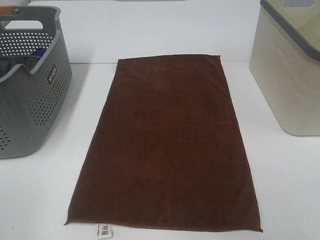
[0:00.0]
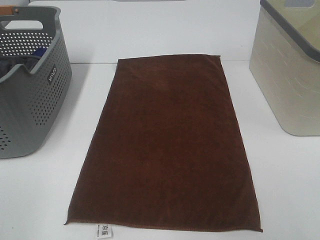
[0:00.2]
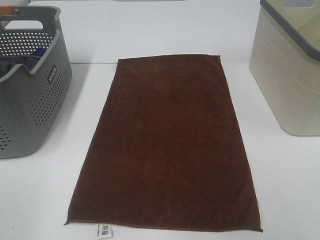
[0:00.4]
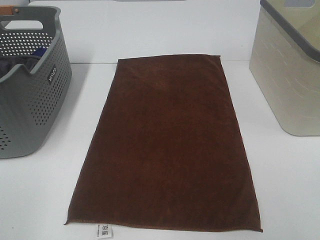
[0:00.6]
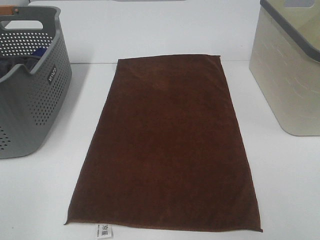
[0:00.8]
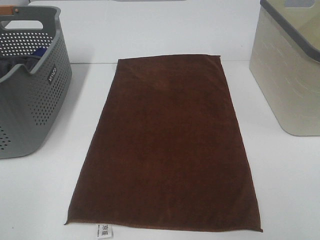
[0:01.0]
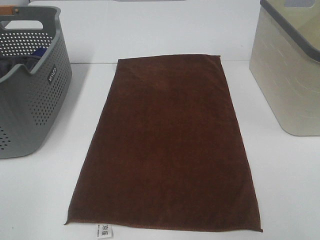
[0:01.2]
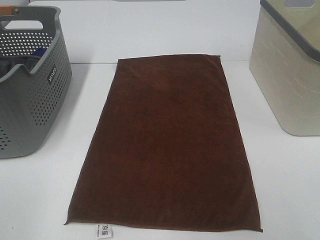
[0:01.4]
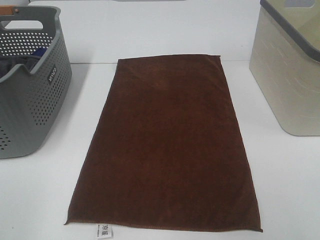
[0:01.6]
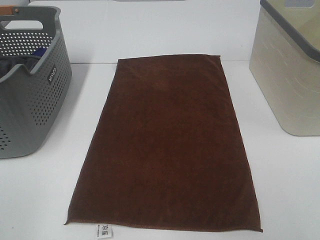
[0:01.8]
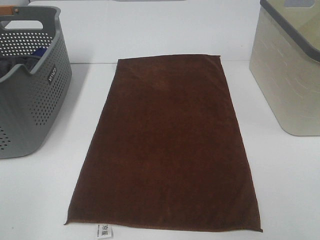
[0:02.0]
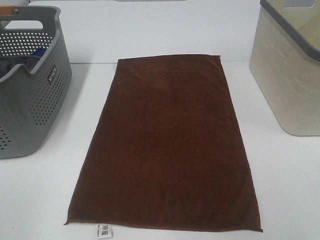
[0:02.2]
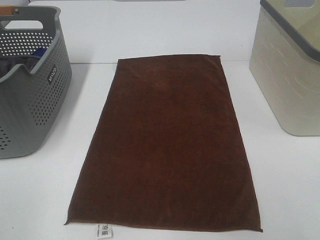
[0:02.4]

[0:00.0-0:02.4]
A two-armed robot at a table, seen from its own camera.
Task of the whole recording: Remove the towel and place it.
0:00.0 to 0:02.4: Neither gripper changes place.

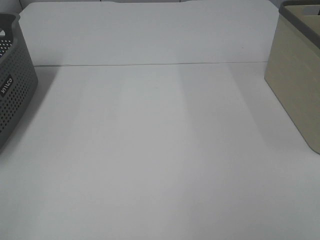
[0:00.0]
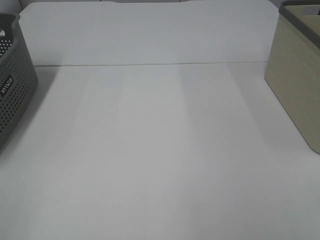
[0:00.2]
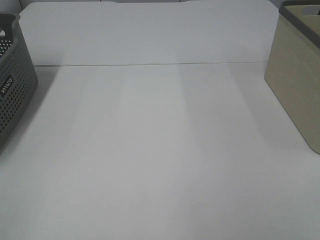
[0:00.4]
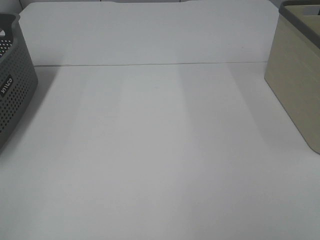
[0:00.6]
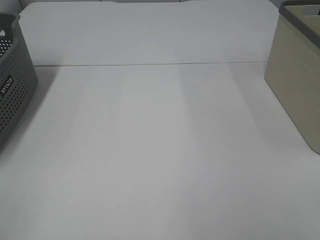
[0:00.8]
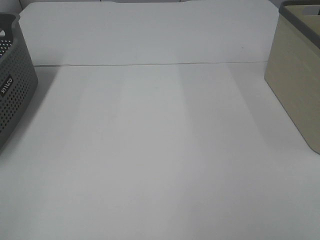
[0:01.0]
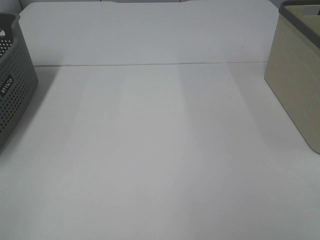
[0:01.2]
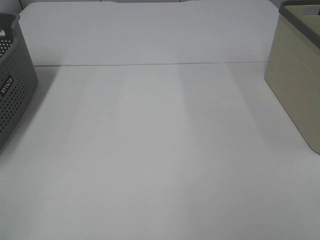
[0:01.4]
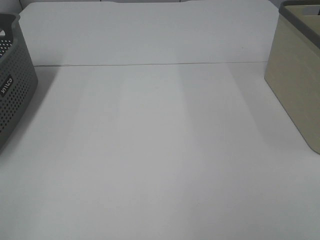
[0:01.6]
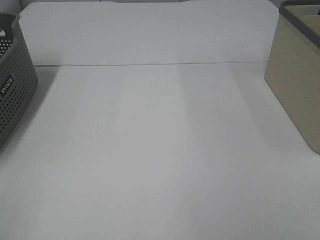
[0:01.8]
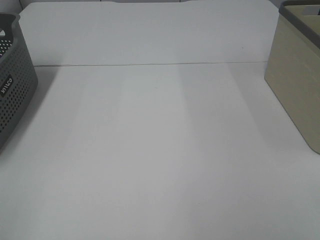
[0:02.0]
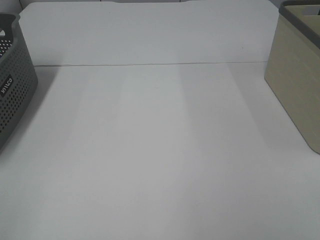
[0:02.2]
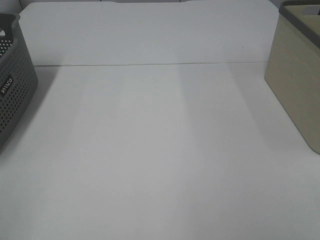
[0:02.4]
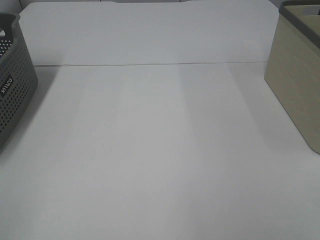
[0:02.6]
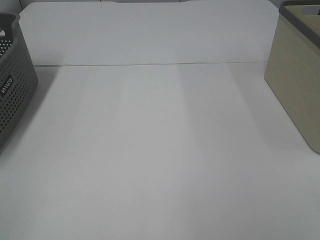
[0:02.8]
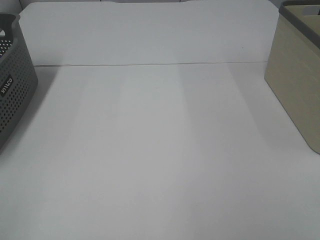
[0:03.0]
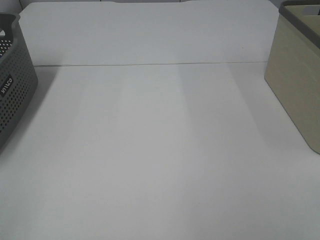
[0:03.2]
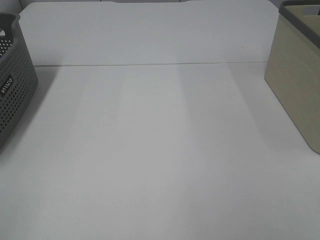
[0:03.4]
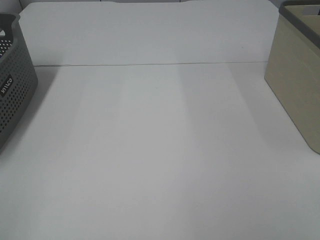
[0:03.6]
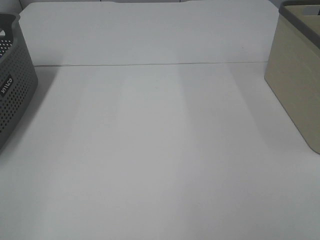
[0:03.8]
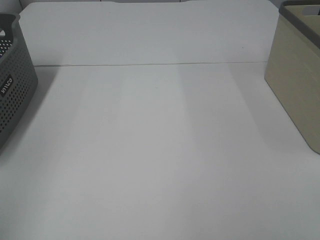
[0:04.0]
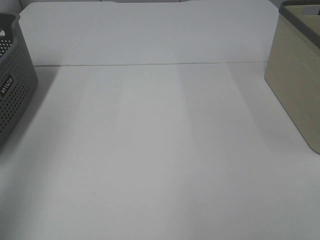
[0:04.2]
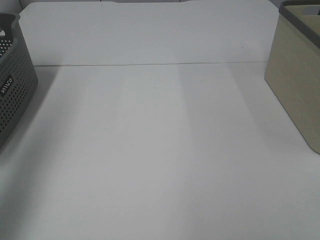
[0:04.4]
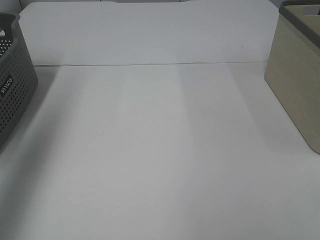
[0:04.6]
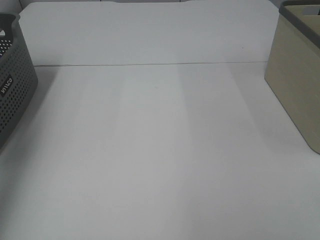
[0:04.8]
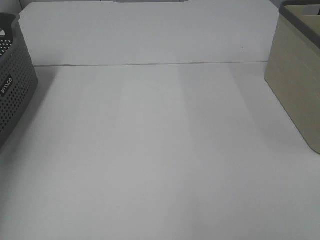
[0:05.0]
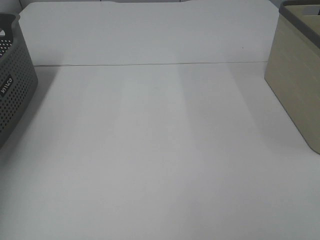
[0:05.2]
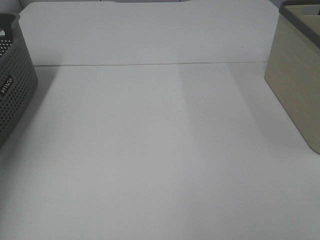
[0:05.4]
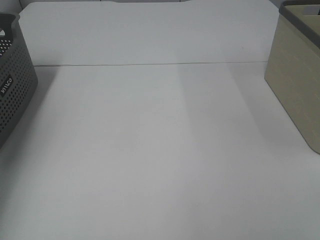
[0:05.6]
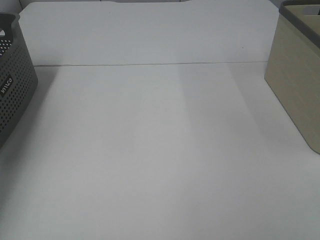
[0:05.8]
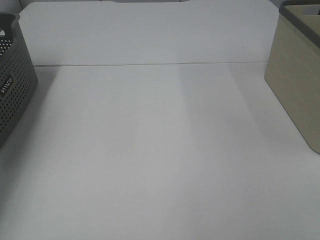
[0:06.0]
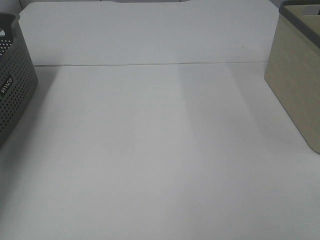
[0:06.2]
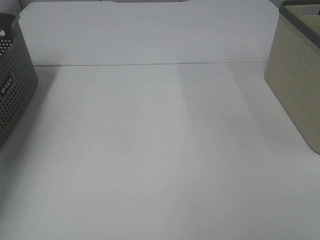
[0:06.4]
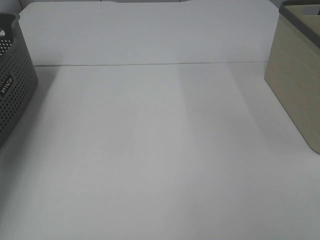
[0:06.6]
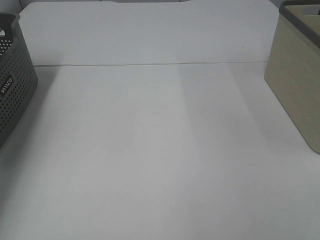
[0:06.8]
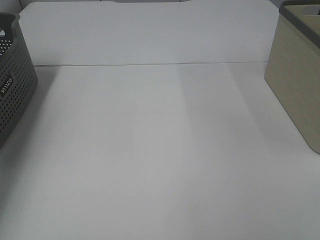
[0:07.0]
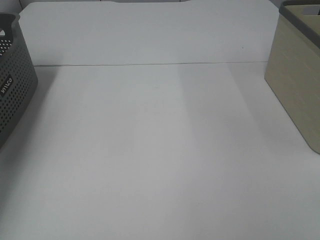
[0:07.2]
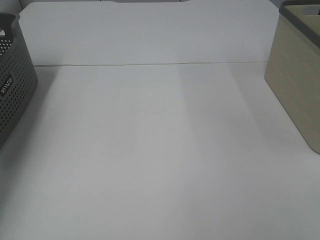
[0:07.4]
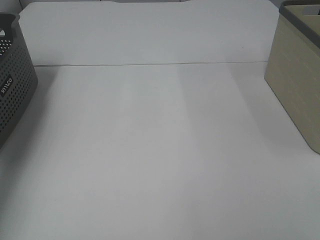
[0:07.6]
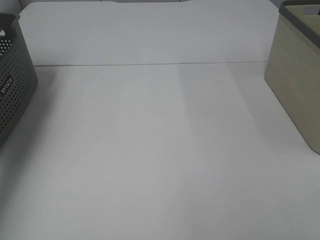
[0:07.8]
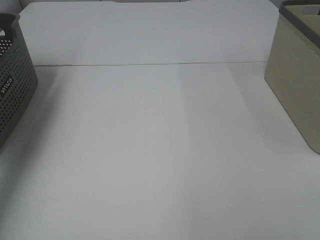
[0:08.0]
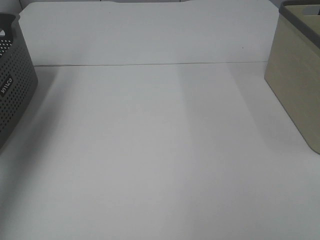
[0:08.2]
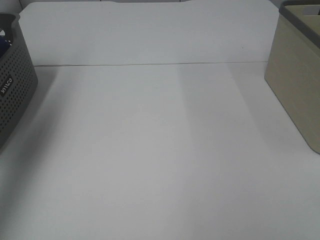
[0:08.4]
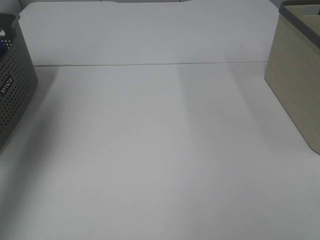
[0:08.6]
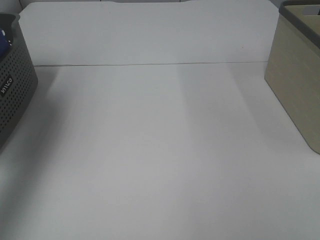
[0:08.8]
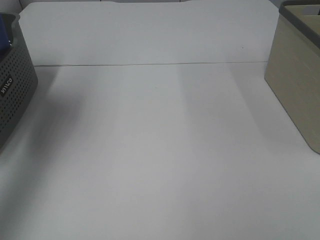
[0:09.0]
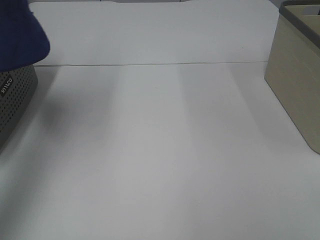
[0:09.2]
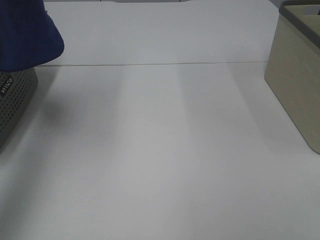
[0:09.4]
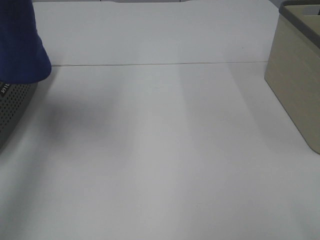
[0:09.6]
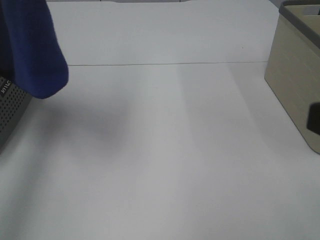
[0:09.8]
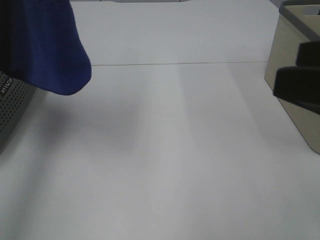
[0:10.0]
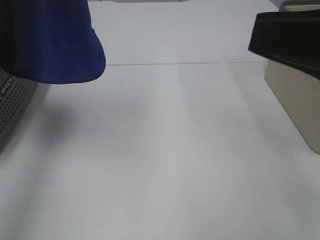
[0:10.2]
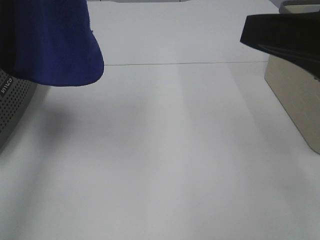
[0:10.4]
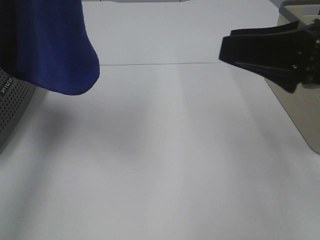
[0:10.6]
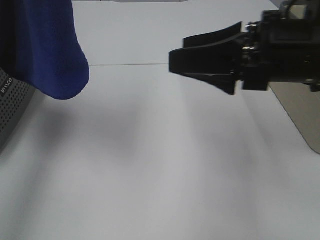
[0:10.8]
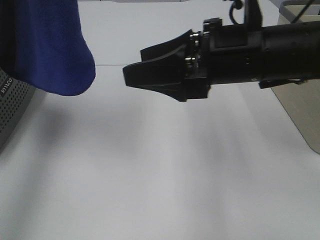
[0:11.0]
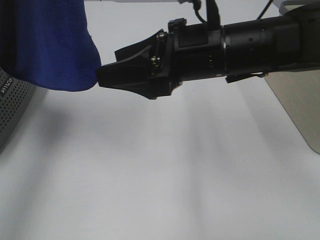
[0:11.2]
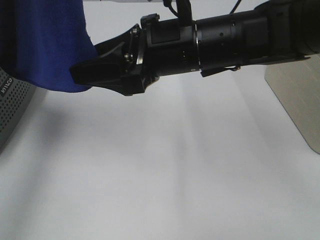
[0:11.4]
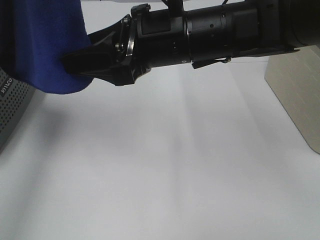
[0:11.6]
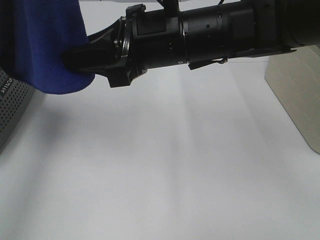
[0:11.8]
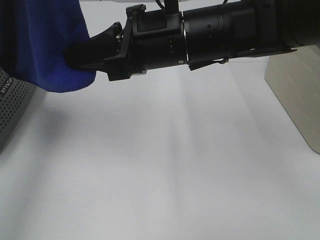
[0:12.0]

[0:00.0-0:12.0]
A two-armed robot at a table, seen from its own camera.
Task of the whole recording: Remove the towel and place it.
Step, 0:08.6 to 0:11.8: Right hand: grab a corner of the blue towel and straighten it.
0:00.0 to 0:03.0: Both grippers stay put.
0:03.0 to 0:04.4: The left gripper travels forward and upward by roughly 25 cm.
0:04.4 to 0:06.0: The left gripper goes about 35 cm forward and downward.
0:07.6 to 0:09.0: The left gripper heads upward and backward, covering roughly 30 cm.
0:09.0 to 0:10.4: The left gripper heads to the right, covering roughly 10 cm; the right gripper shifts roughly 20 cm forward.
0:10.4 to 0:12.0: The right gripper is displaced to the left and forward by approximately 20 cm, and closes.

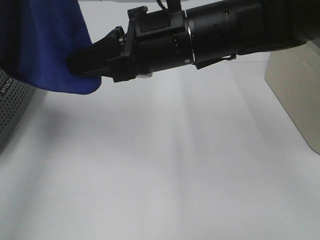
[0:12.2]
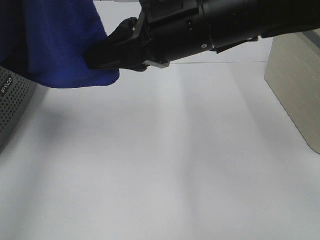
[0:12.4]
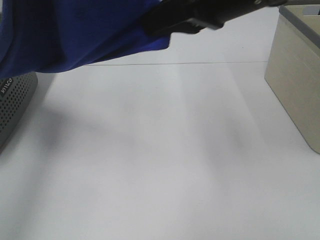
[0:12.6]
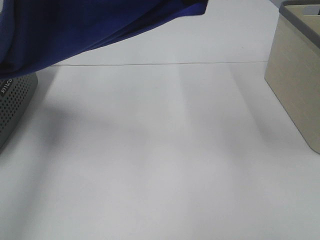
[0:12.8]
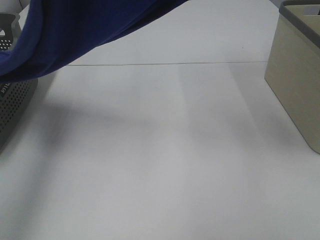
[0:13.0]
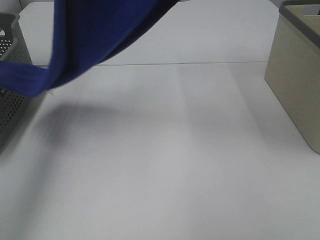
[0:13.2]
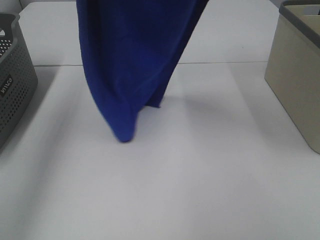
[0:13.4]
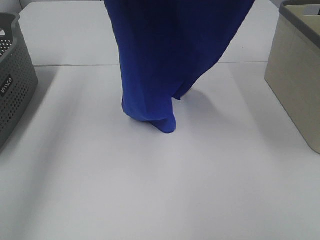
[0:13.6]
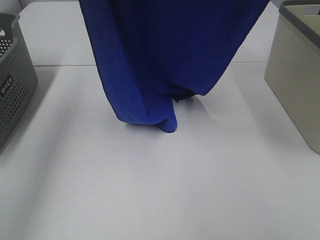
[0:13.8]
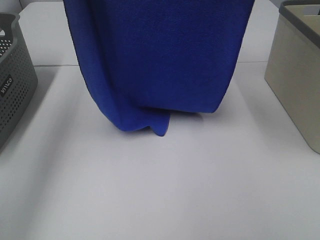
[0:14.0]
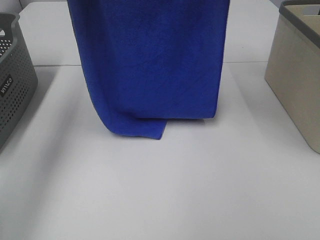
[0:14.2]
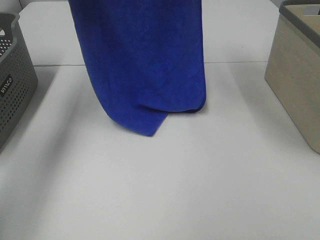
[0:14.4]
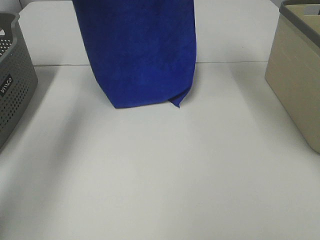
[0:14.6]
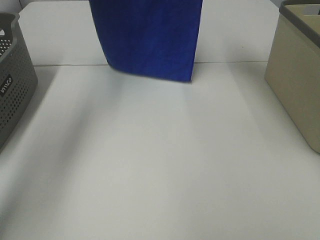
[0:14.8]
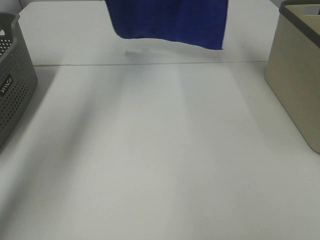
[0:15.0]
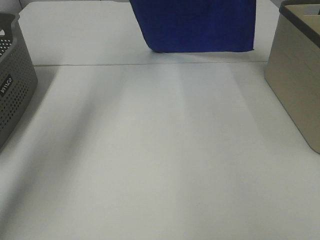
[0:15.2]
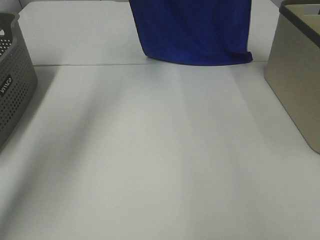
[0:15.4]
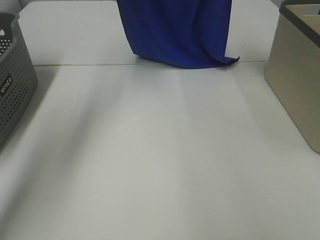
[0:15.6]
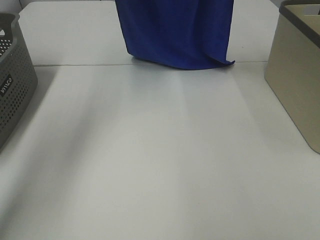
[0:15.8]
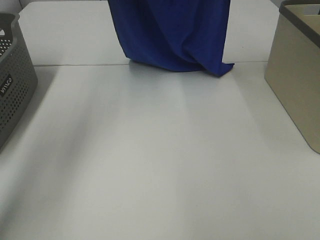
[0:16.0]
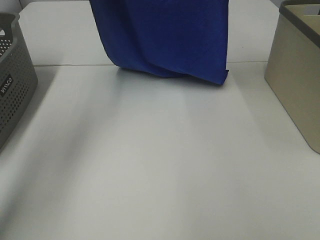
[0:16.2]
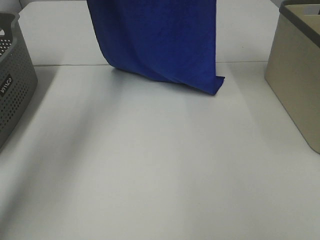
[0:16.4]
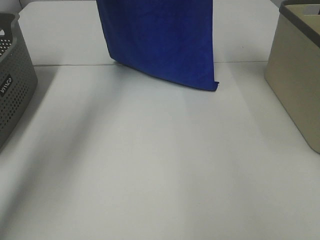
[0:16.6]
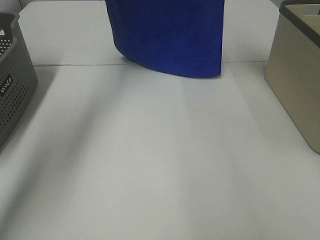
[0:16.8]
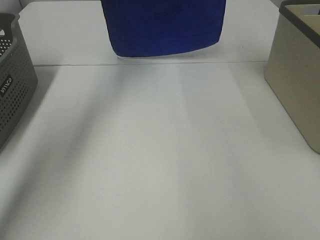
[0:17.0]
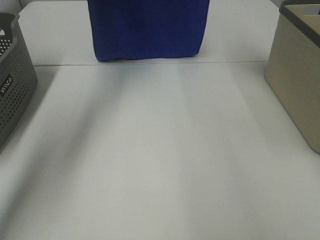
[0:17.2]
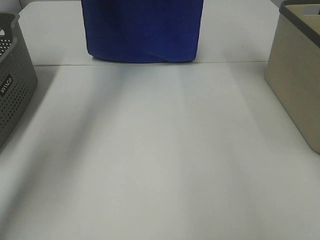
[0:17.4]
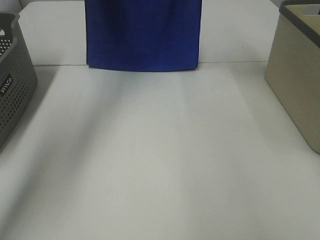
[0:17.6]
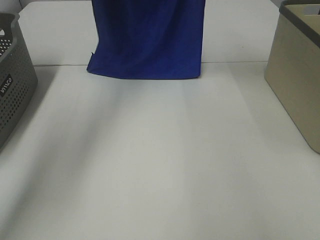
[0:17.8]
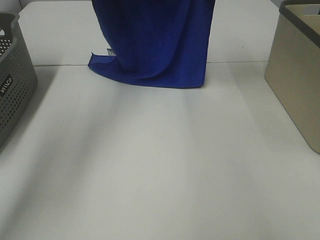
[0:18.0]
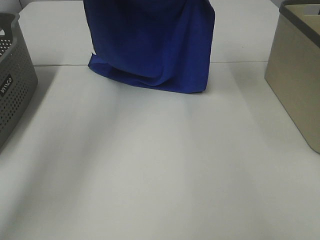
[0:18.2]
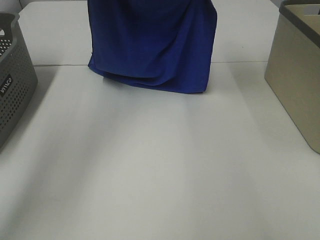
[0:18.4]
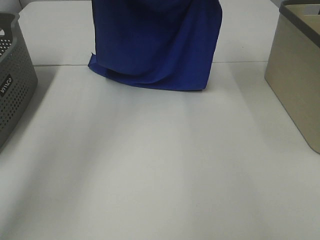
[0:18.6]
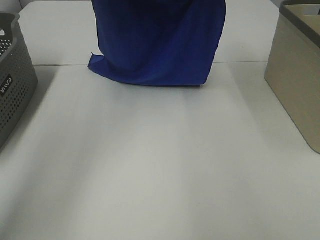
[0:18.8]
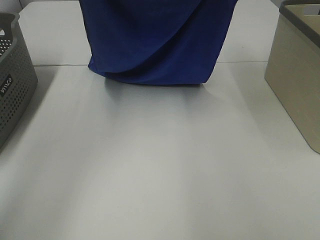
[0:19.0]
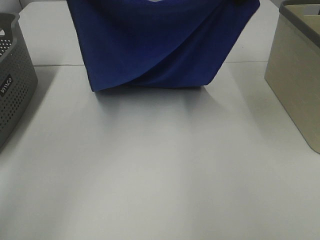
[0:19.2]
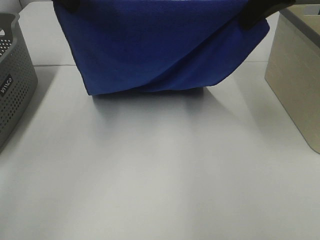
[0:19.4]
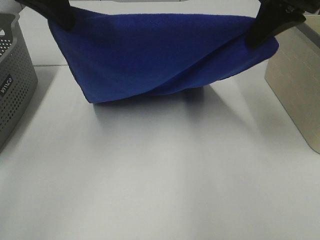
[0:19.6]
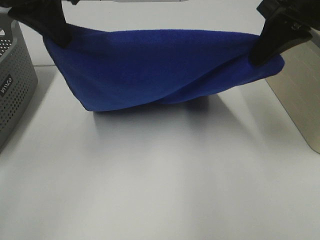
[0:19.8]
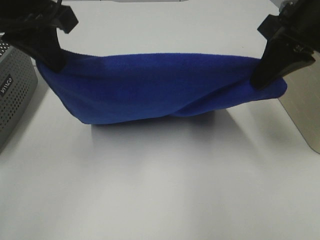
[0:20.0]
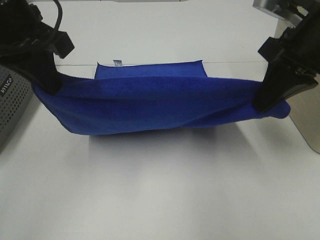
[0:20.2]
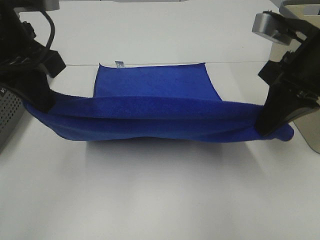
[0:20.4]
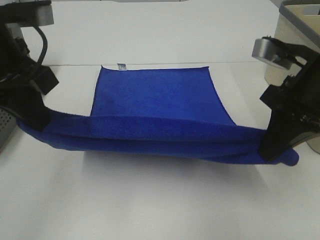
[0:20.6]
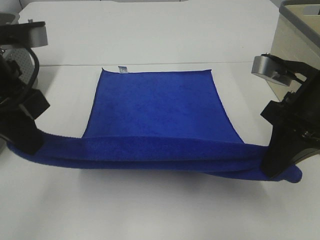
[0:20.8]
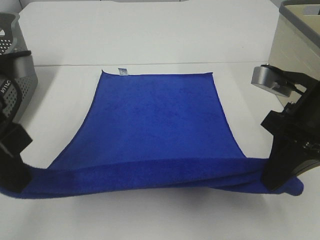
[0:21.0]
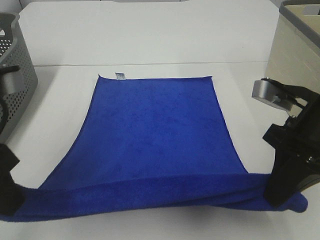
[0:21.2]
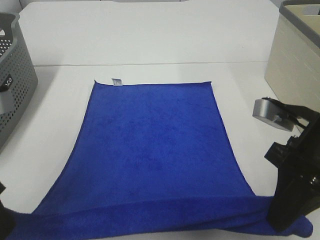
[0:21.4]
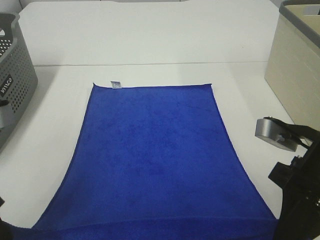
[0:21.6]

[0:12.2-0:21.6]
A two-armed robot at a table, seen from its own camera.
Task of the whole recording: Remove the towel and place it.
Step, 0:12.2 to 0:19.8: Right hand: spread the blue towel flat on the table.
Step, 0:12.2 to 0:20.2: Left hand: spread the blue towel flat on the table.
0:12.2 to 0:13.8: The right gripper goes roughly 25 cm upward and to the right. The left gripper moves forward, roughly 10 cm.
0:13.8 to 0:15.4: The left gripper heads forward and downward, covering approximately 25 cm. Meanwhile the right gripper shifts some 25 cm forward.
0:17.0 to 0:18.4: The left gripper travels backward and downward by roughly 10 cm. The right gripper heads downward, covering about 10 cm.
0:18.4 to 0:20.0: The left gripper moves backward and downward, roughly 20 cm. The right gripper travels backward by approximately 20 cm.
0:20.0 to 0:21.6: The right gripper travels downward and backward by about 15 cm. The left gripper shifts about 15 cm backward and downward.
